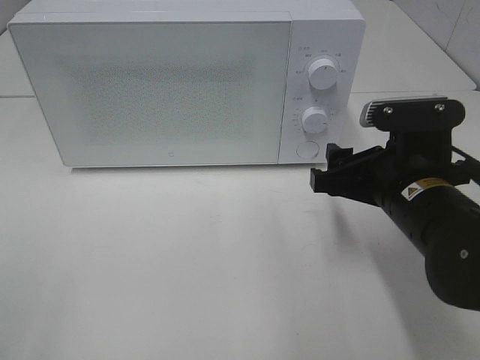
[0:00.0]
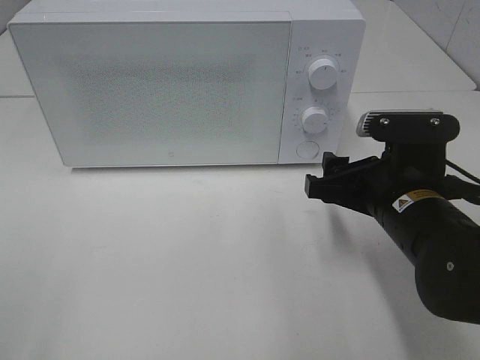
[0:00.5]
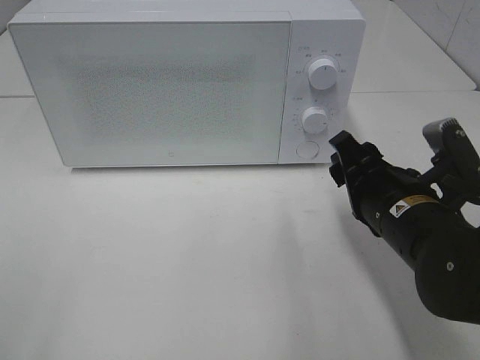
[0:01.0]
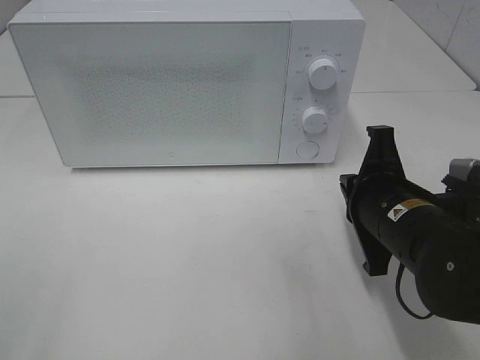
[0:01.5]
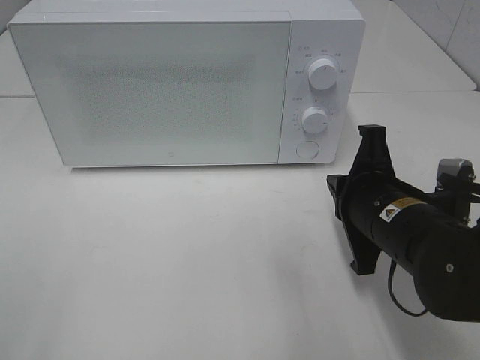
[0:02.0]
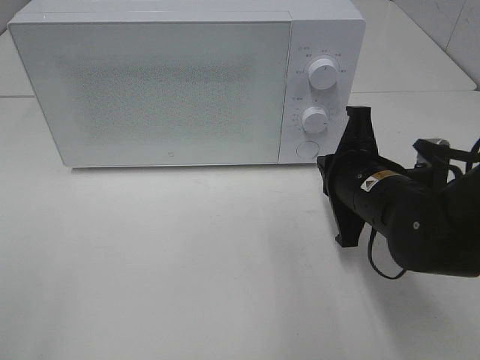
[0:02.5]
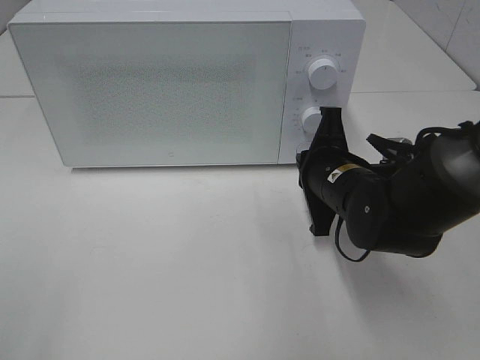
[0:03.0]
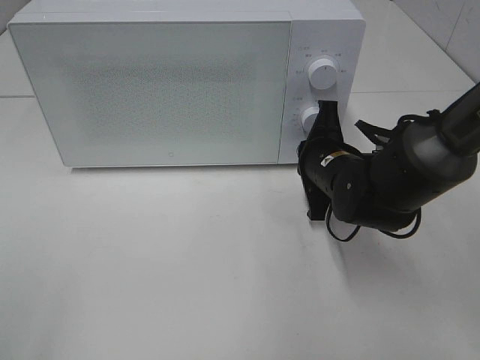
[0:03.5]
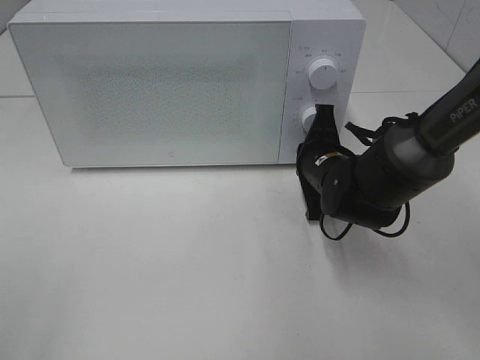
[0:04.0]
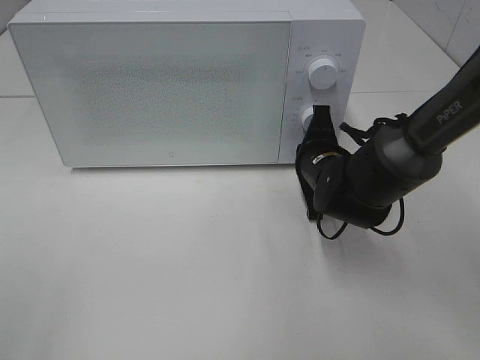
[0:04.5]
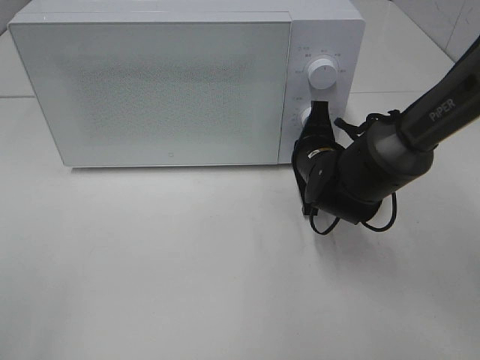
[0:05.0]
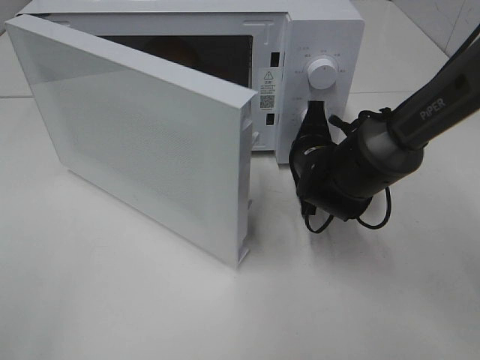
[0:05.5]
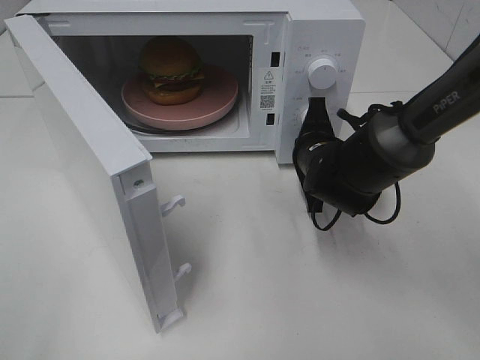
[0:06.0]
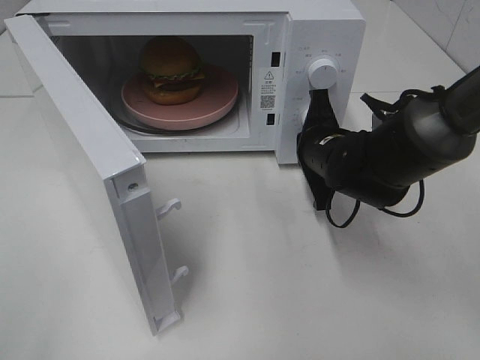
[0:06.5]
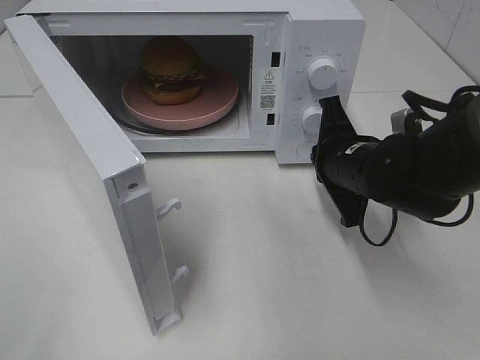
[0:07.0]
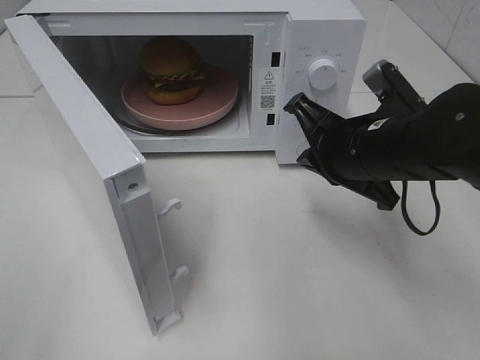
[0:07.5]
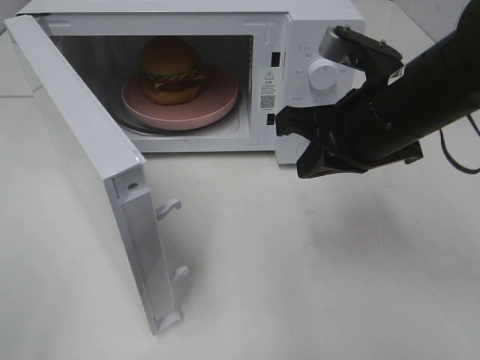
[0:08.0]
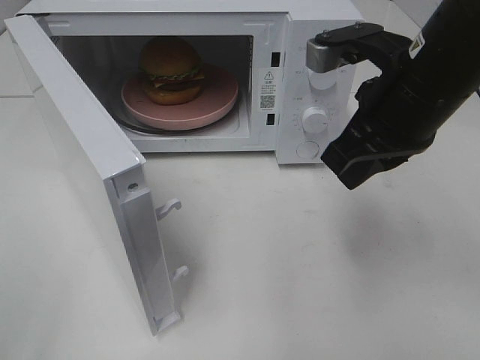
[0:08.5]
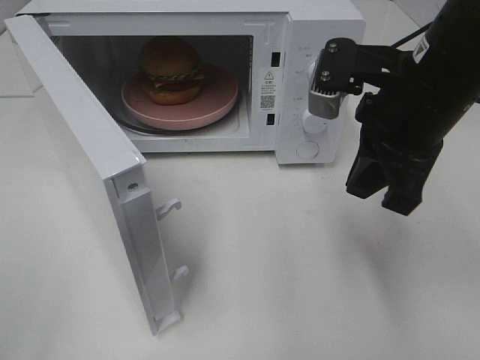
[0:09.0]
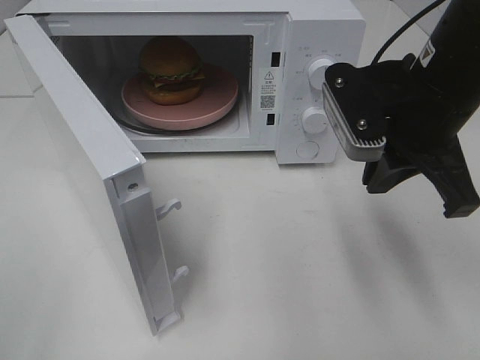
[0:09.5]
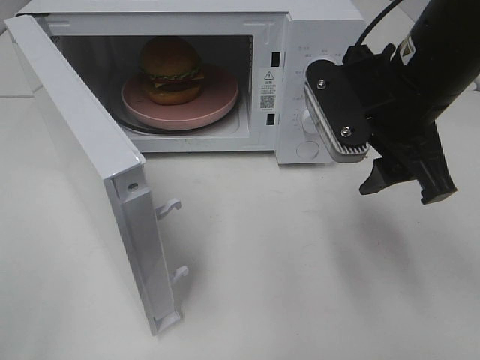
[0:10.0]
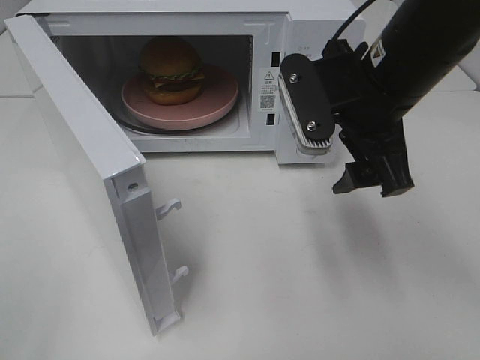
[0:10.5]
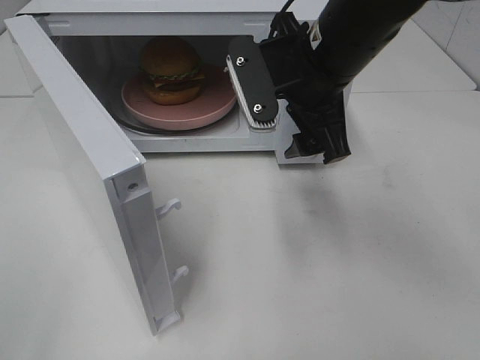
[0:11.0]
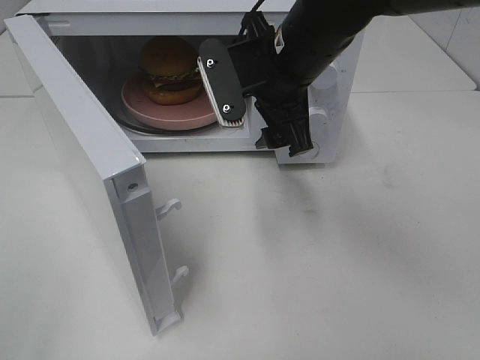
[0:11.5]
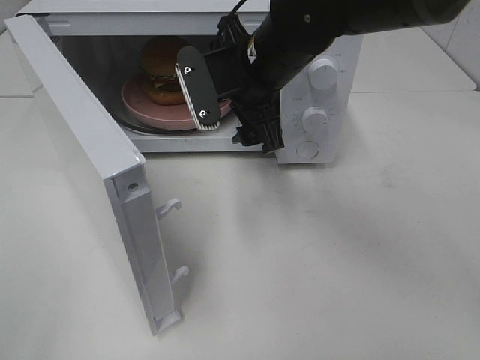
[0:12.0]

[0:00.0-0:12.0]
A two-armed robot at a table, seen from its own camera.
Task of the whole recording: Heat the burger.
Step, 0.0 to 6.5 s: Right hand: press the switch.
0.0 to 2.0 s: The right gripper closes.
2.0 to 4.0 s: The right gripper heads forward, covering some 10 cm.
6.0 to 8.0 s: The right gripper shifts approximately 15 cm upward and backward.
8.0 to 10.0 s: The right gripper opens up.
10.0 to 12.0 s: The right gripper is displaced to the left and forward by approximately 15 cm.

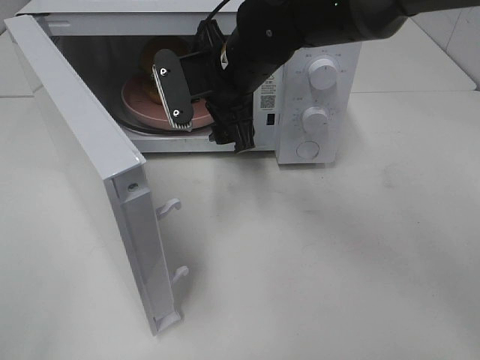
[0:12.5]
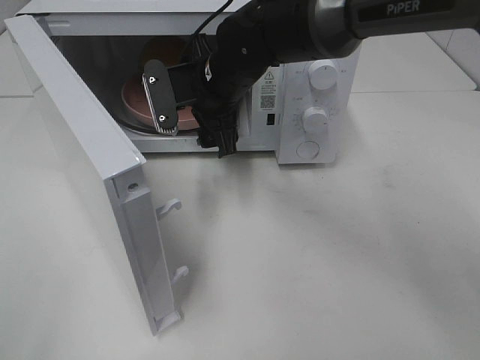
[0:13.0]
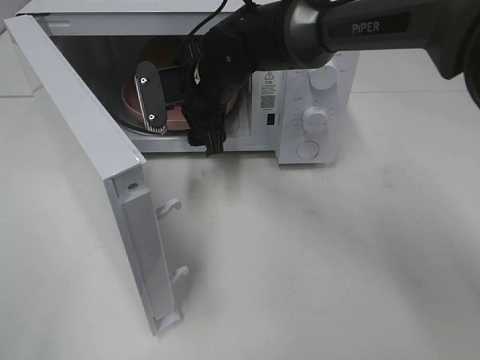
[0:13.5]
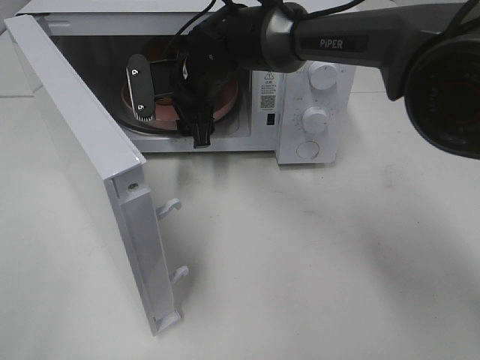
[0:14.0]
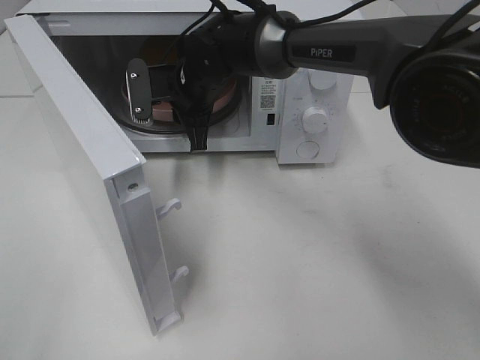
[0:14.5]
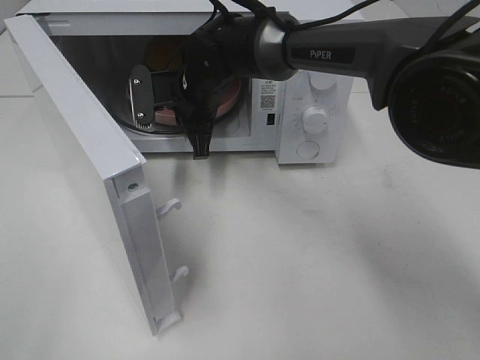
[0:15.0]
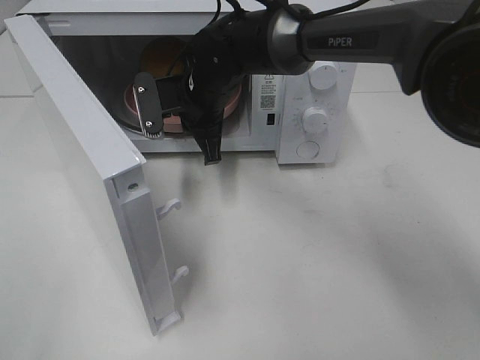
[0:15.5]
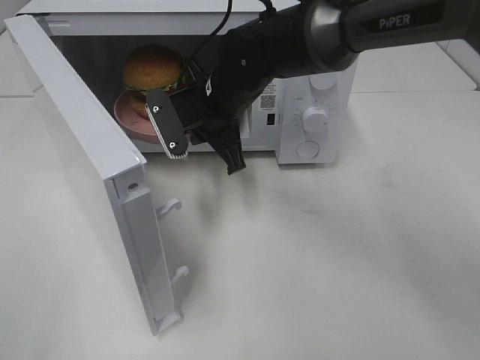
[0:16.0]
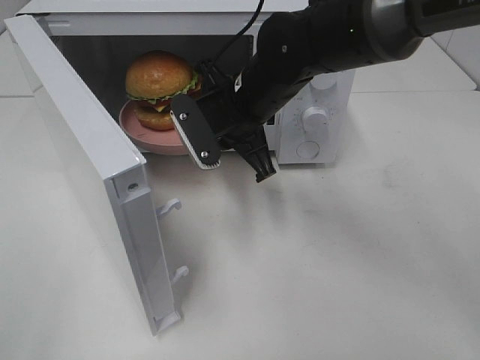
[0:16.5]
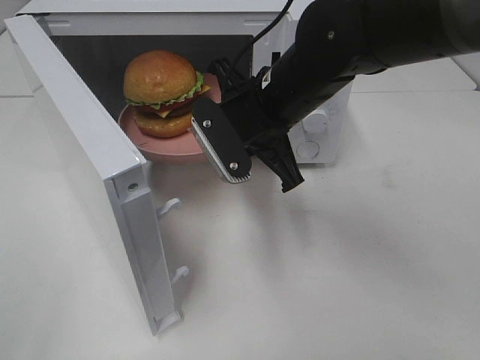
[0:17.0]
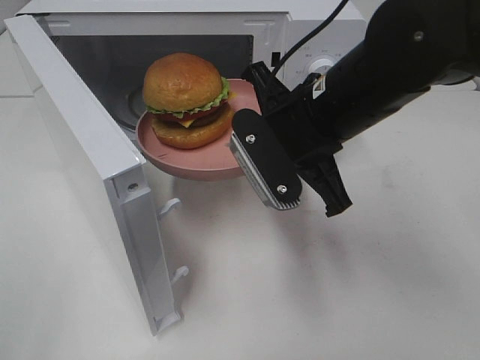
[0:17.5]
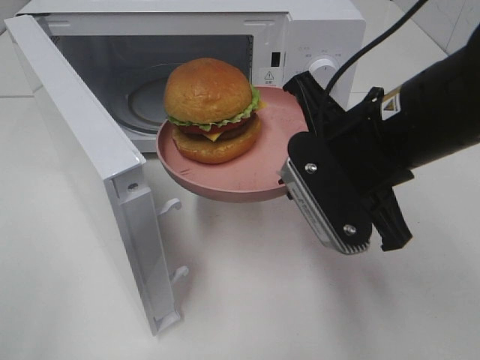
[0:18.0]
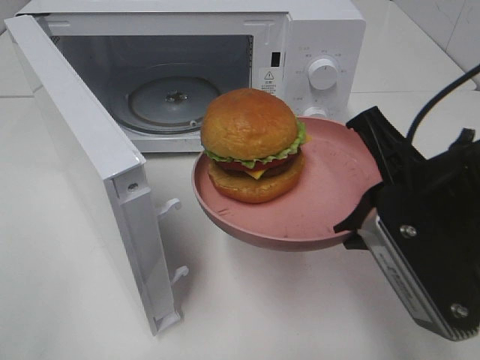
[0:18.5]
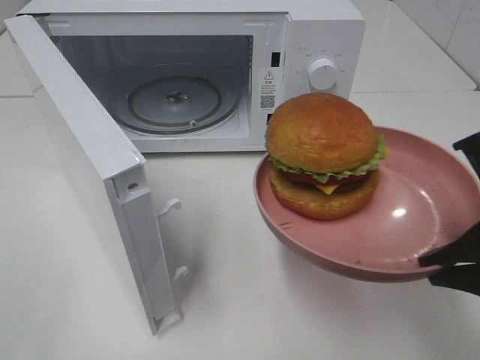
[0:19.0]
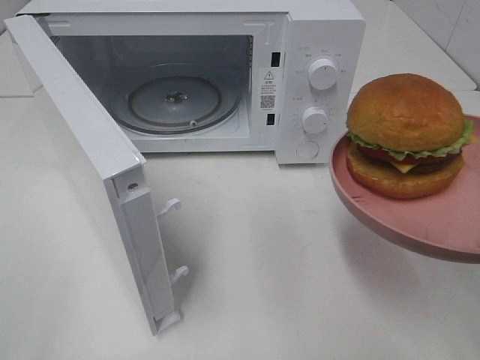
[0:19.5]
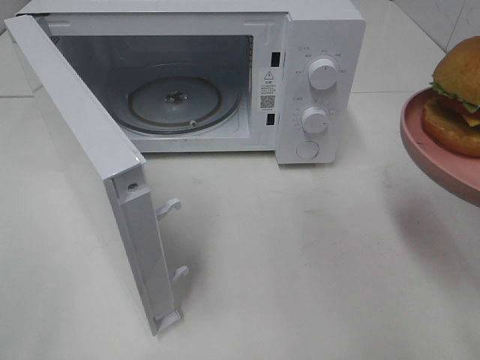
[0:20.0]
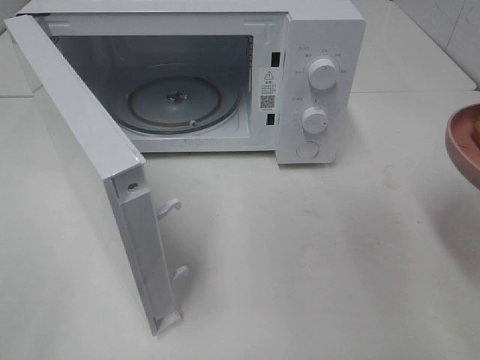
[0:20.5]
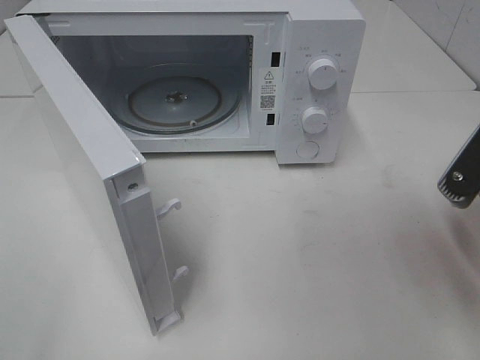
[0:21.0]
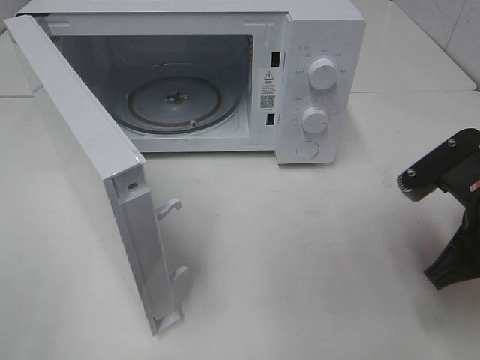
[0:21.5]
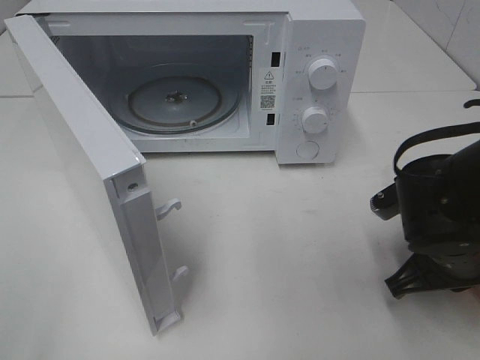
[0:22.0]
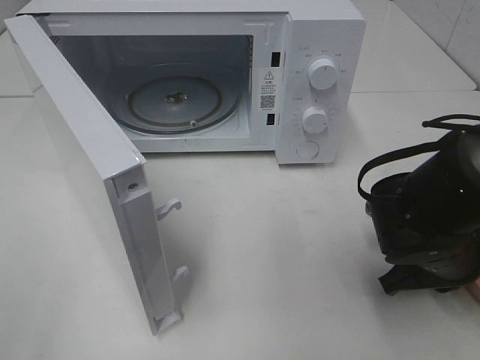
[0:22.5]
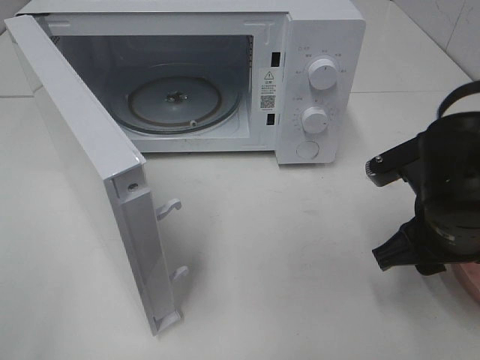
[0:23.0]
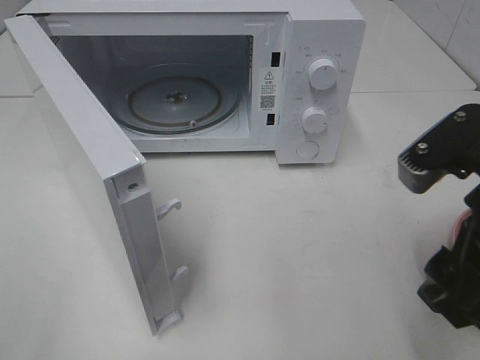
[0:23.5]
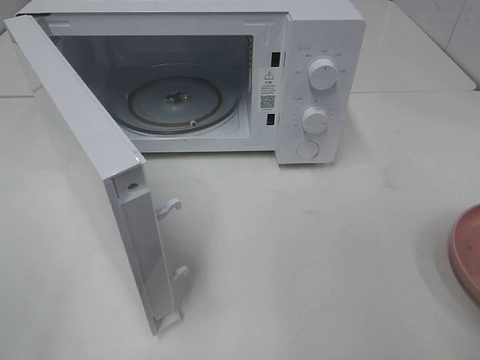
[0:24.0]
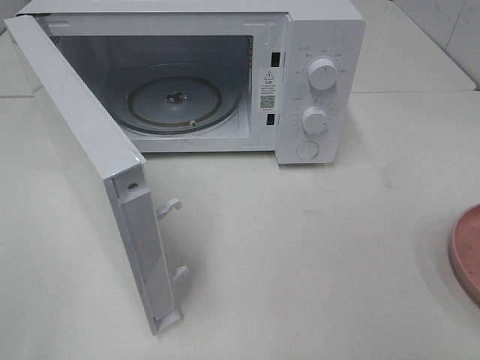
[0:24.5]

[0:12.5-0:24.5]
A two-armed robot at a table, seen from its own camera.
Task of the whole recording: Heat the burger.
Step, 12.5 to 14.5 s: Right hand: grab the plate with the hamburger.
Step, 15.0 to 22.5 s: Right hand: place the plate on the table.
12.5 to 14.5 s: The right gripper is displaced forward by about 5 cm, and closes.
14.5 to 16.5 s: The right gripper shifts roughly 10 cm backward and to the right.
16.5 to 18.5 s: The right gripper is displaced backward and to the right by roughly 25 cm.
18.5 to 20.5 s: The right gripper shifts some 10 cm to the right.
20.5 to 22.5 s: The right gripper goes about 20 cm downward and forward.
22.5 to 24.5 s: The right gripper is displaced upward, backward and to the right by some 30 cm, and opens.

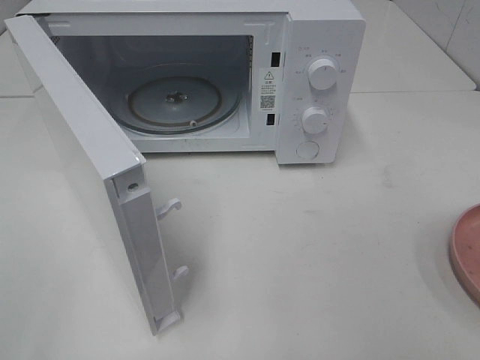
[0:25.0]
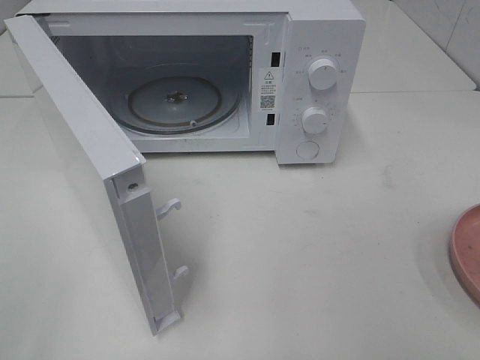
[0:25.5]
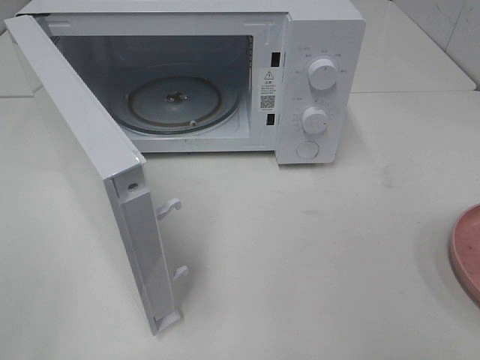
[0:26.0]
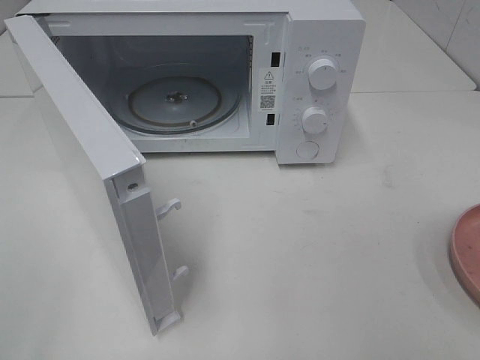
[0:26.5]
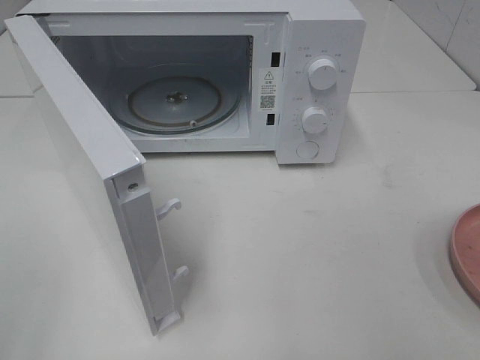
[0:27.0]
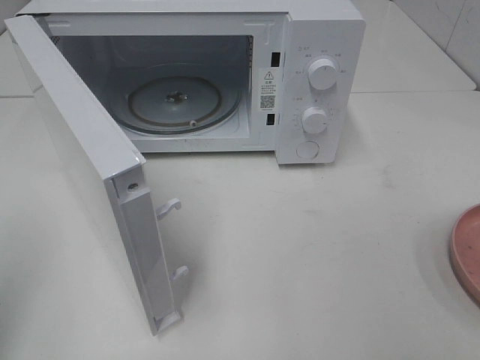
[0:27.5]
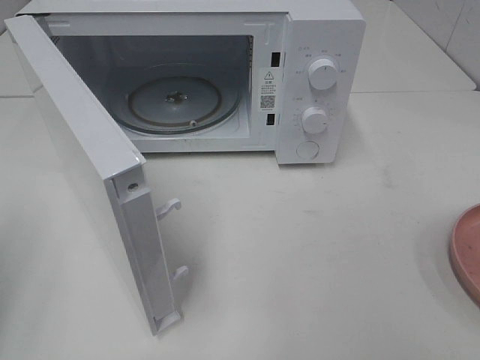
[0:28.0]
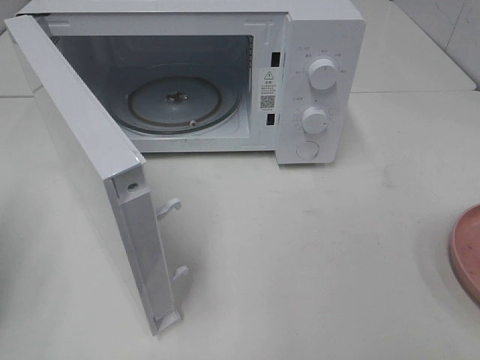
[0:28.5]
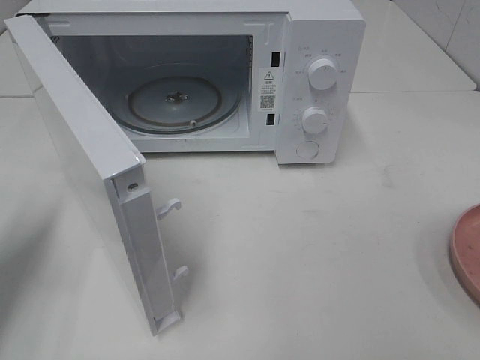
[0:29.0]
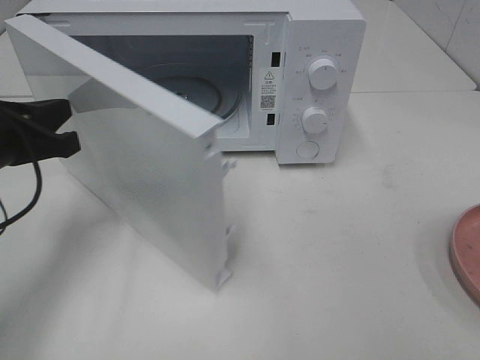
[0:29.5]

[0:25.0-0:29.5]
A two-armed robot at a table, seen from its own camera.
Task of the whole recording: Heat the burger.
27.0 to 29.5 s: The left gripper moves forward and downward, some 25 cm, and closes up.
